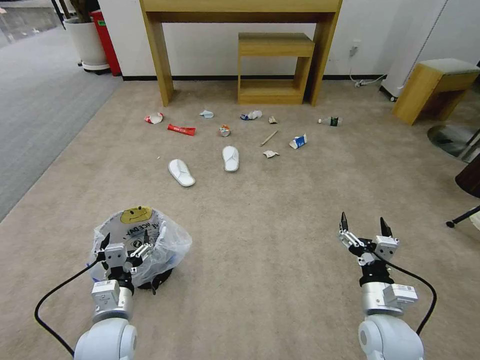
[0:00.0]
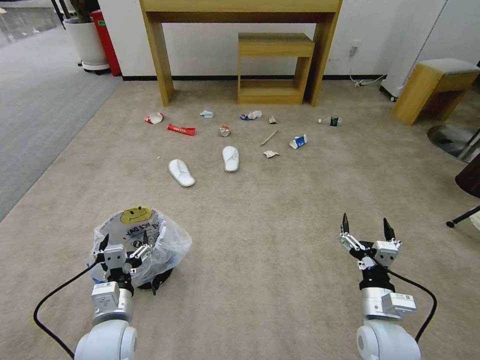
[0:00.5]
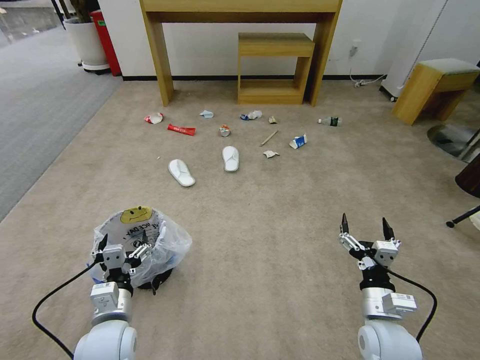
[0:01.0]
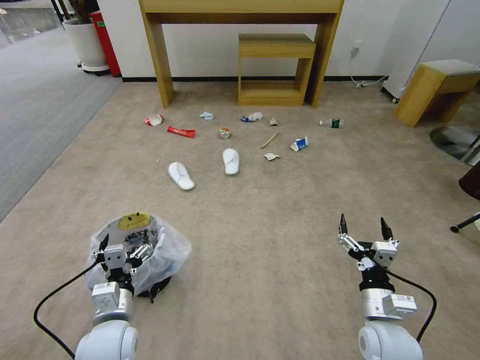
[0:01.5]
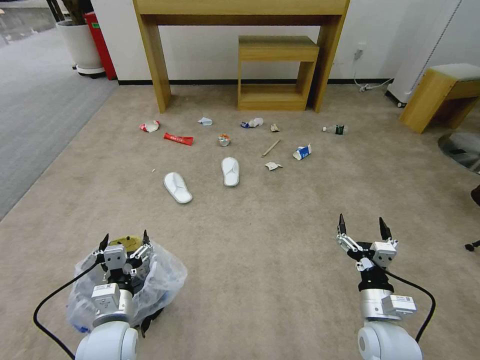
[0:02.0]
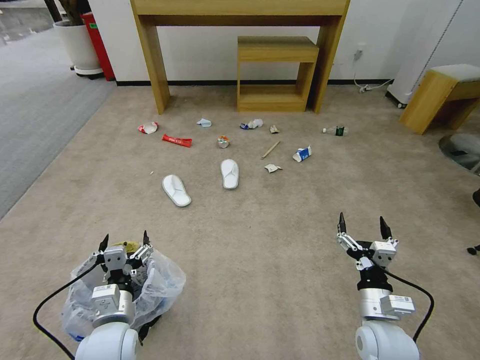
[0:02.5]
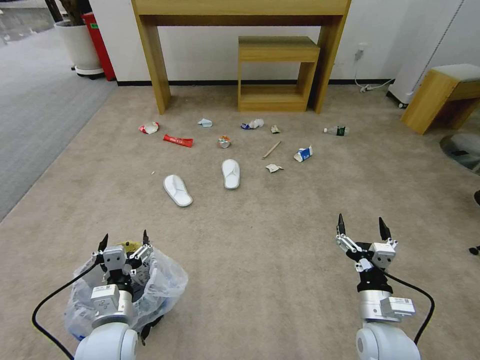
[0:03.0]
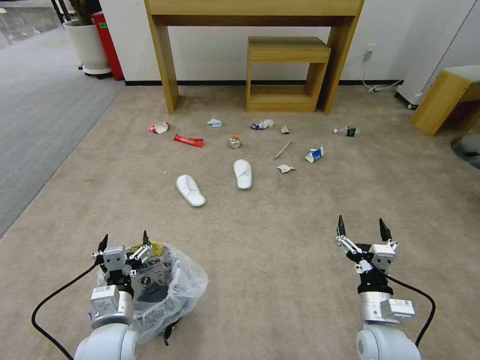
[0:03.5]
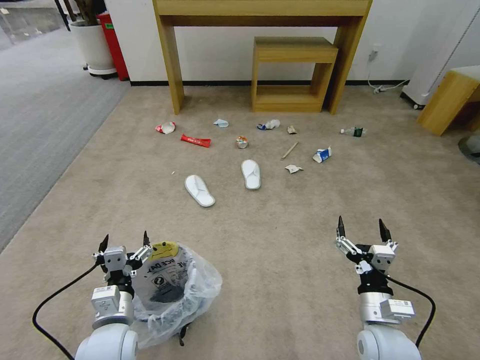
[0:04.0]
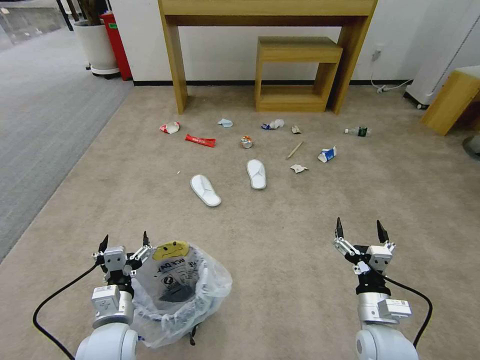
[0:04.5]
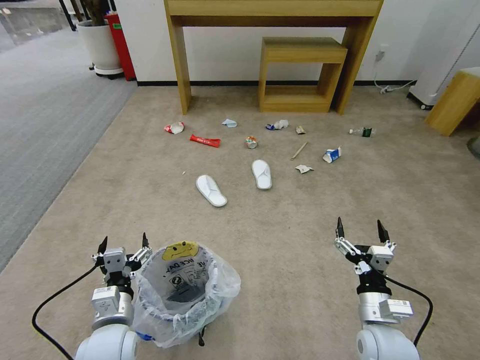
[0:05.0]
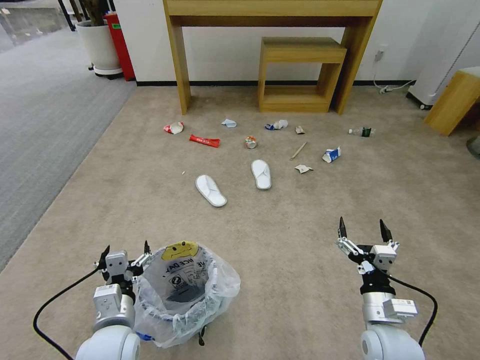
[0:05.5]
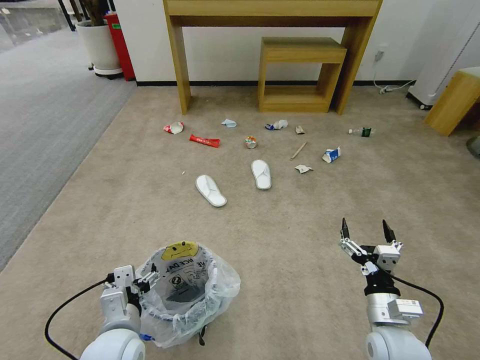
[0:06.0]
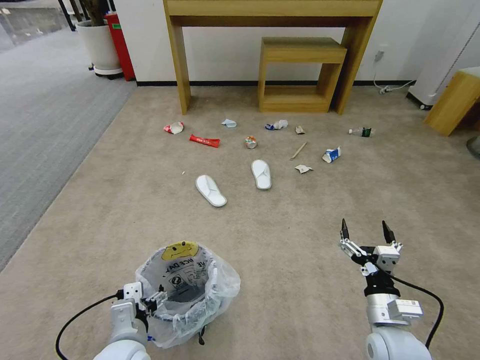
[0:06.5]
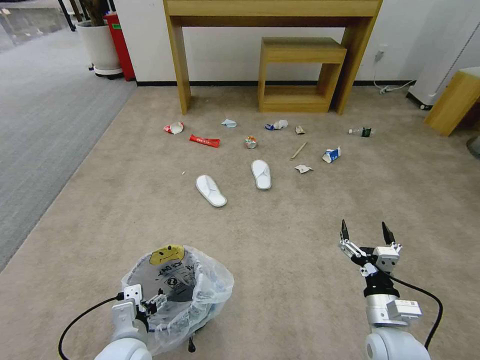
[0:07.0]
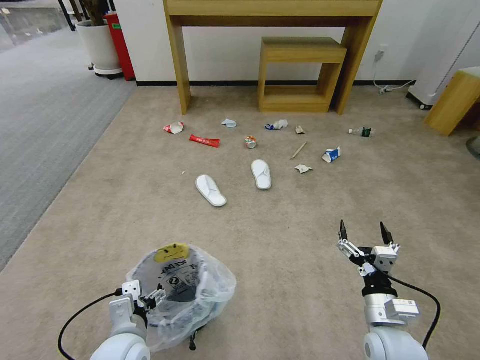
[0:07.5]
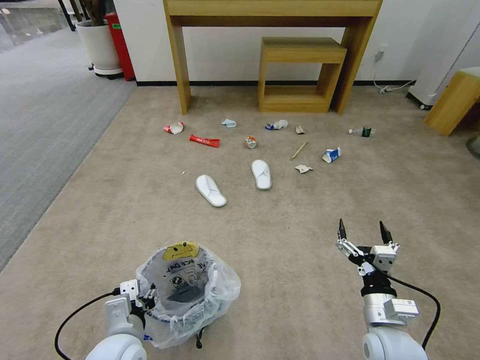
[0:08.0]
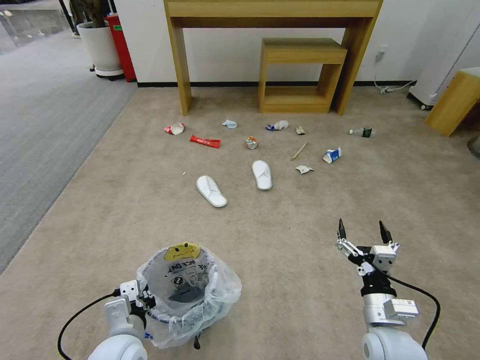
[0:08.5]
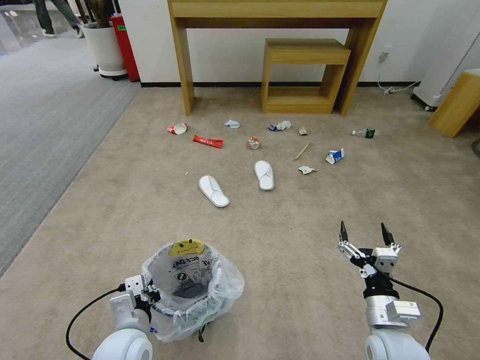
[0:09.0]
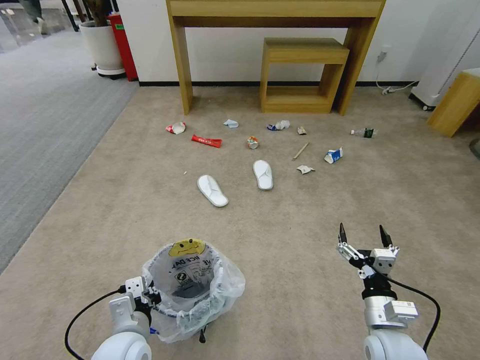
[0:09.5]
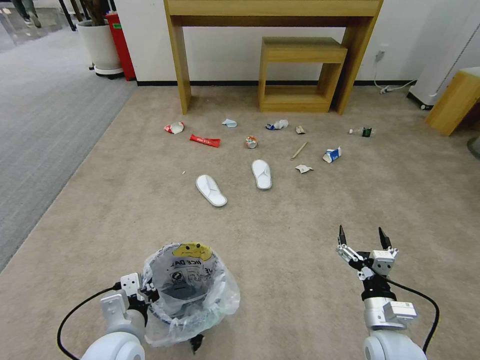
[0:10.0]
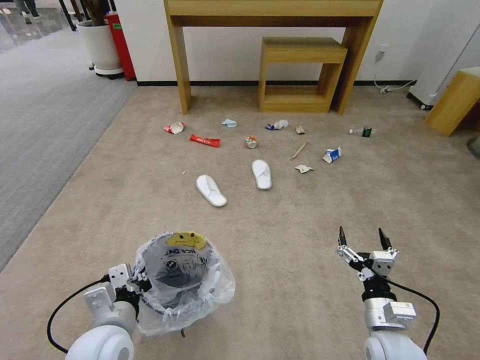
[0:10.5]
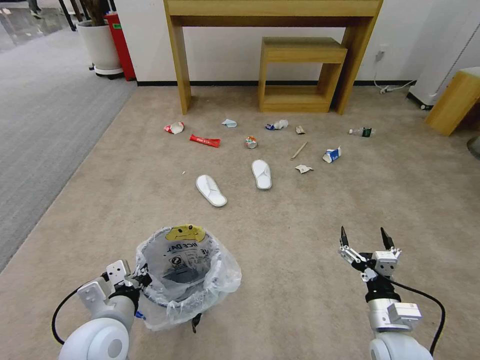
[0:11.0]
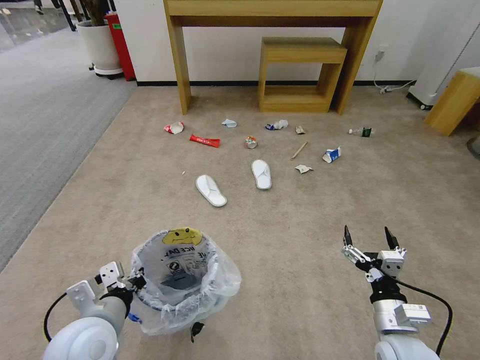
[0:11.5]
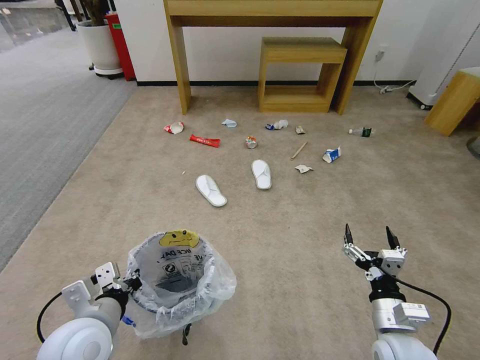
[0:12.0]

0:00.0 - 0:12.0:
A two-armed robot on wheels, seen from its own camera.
Task of the whole recording: Pick up the trash bin and place the garbage on the floor into it.
0:02.0 - 0:04.0: Both grippers stay about where they are.
0:06.0 - 0:08.0: The left gripper closes.
0:08.0 - 0:10.0: The left gripper closes its fingers.
0:10.0 - 0:12.0: The left gripper heads upward, covering some 5 cm.

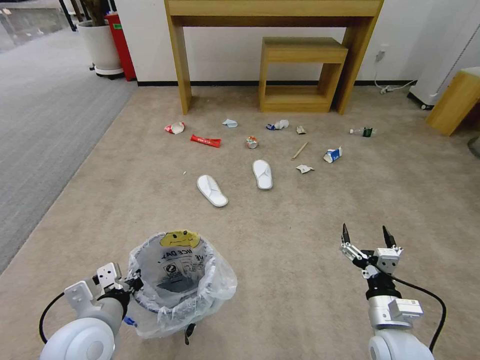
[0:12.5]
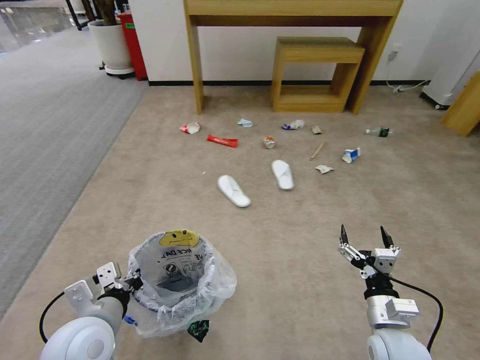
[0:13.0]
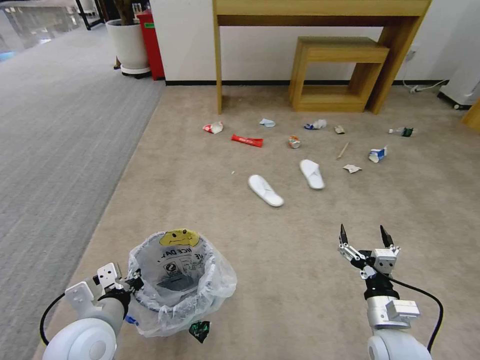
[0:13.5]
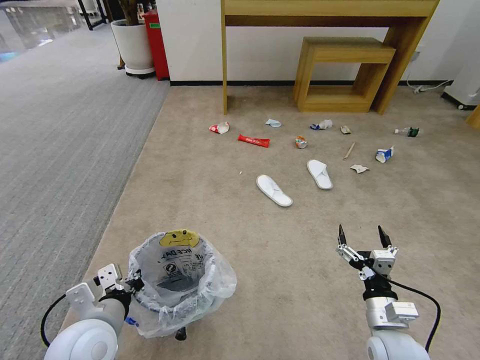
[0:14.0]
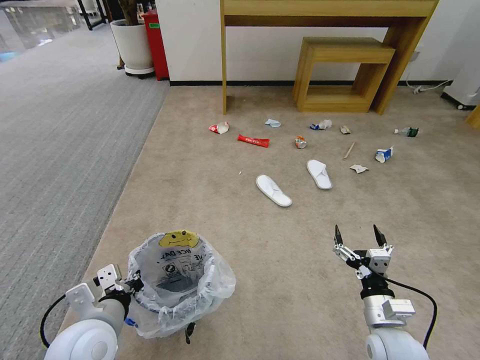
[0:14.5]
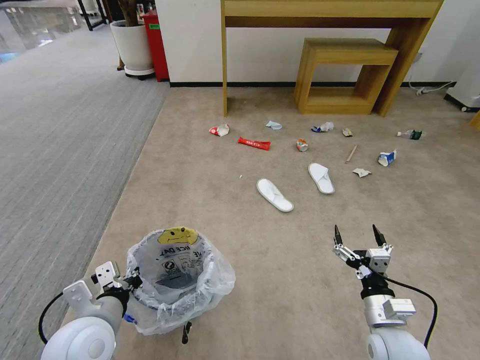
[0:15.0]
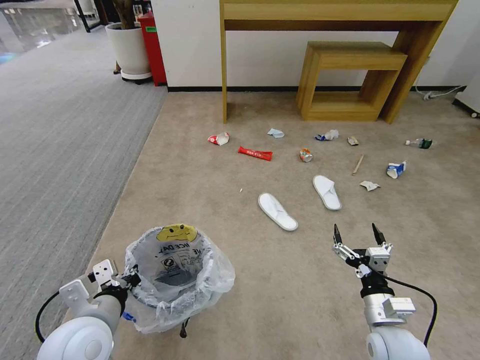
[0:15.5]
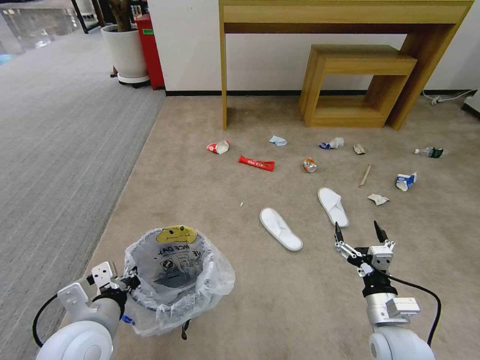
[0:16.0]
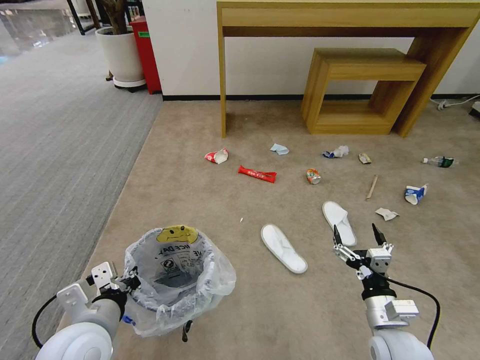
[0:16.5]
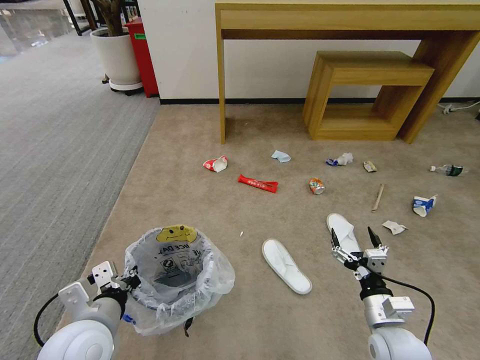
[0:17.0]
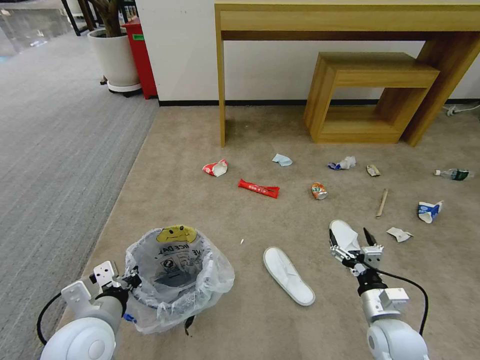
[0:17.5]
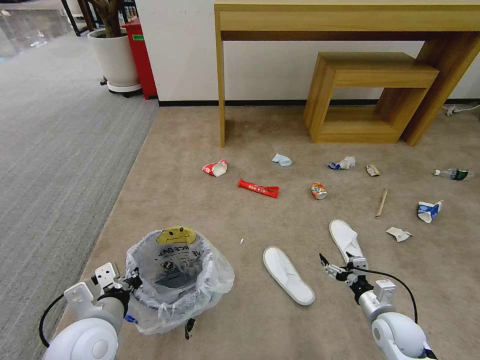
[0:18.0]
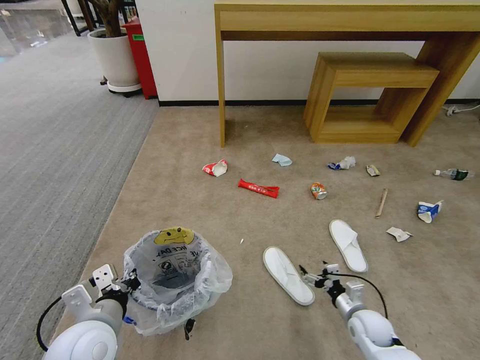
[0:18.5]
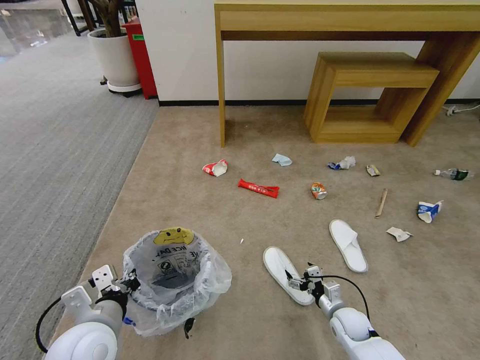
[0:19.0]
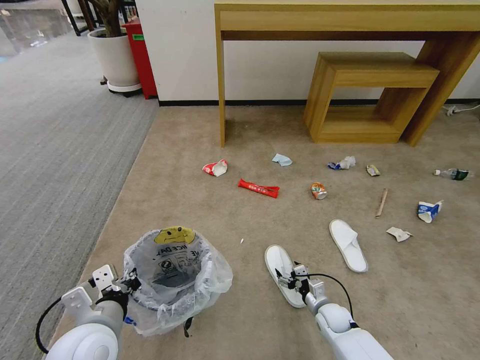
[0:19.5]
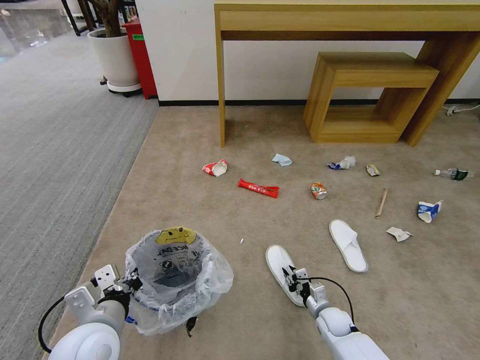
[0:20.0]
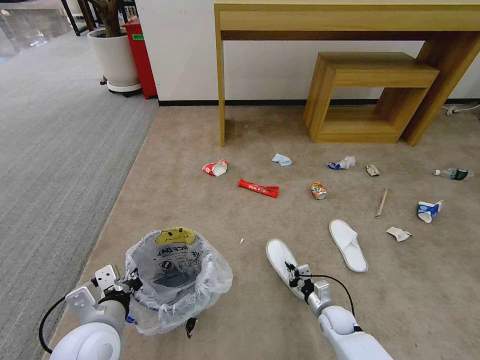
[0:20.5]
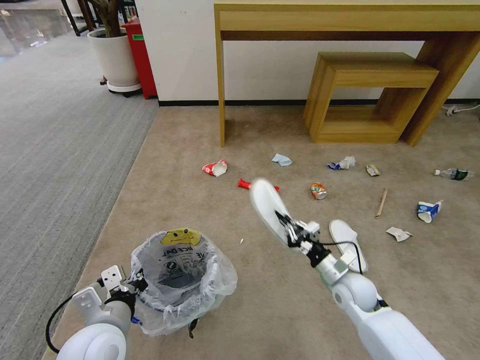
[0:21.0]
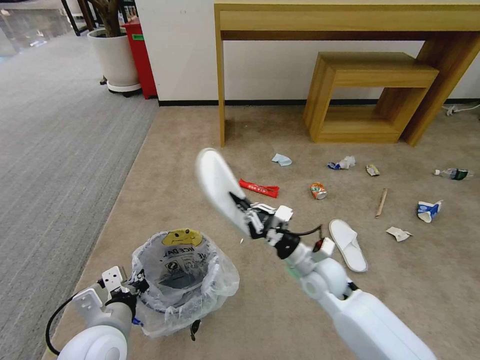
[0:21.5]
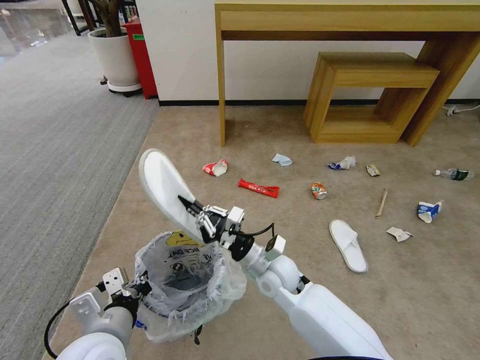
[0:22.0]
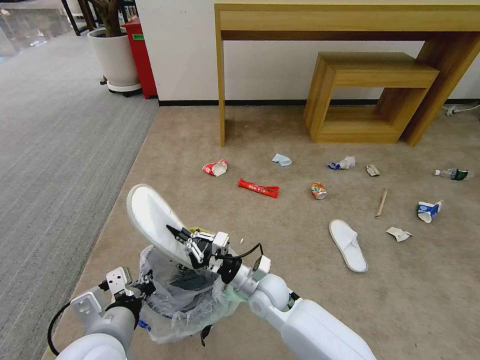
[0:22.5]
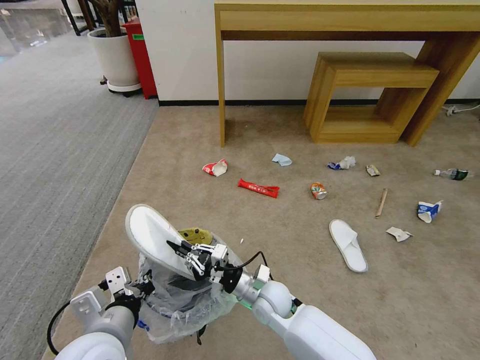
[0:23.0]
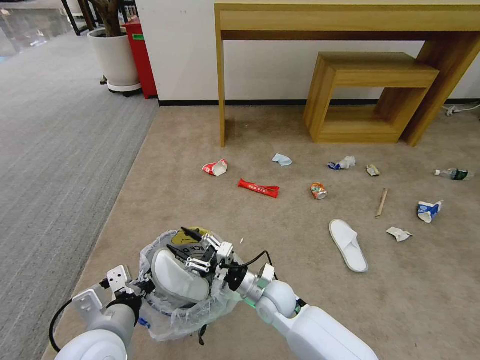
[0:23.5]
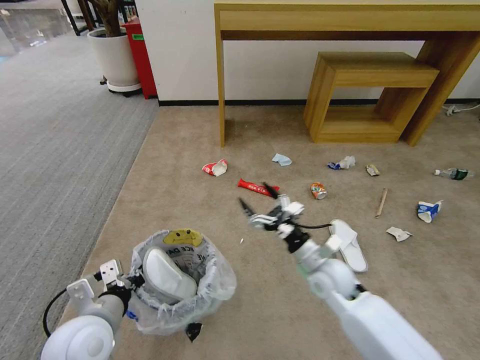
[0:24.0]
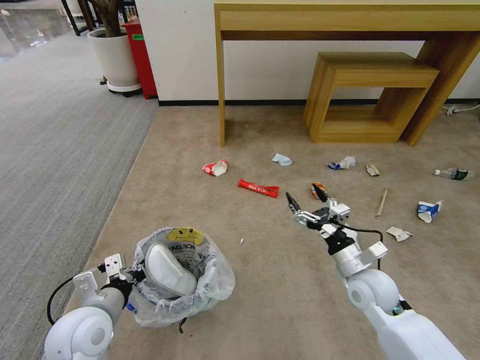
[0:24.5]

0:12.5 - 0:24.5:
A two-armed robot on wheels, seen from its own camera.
Task of the whole recording: Pick up the trash bin and place the garbage on the floor into it.
0:16.5 - 0:18.5: The right gripper shifts about 15 cm downward and forward.
0:18.5 - 0:20.5: The right gripper travels downward and to the left by approximately 10 cm, and closes up.
0:20.5 - 0:22.5: The right gripper goes about 30 cm to the left and upward.
0:22.5 - 0:24.5: The left gripper goes approximately 10 cm to the left and forward; the right gripper shifts roughly 25 cm to the right, and opens.

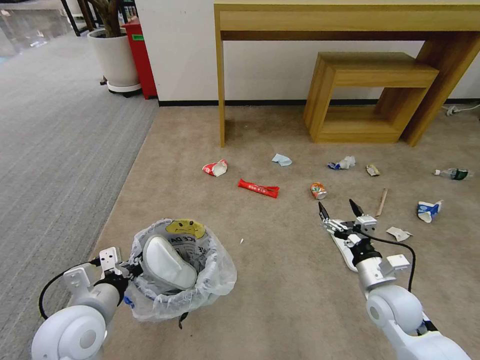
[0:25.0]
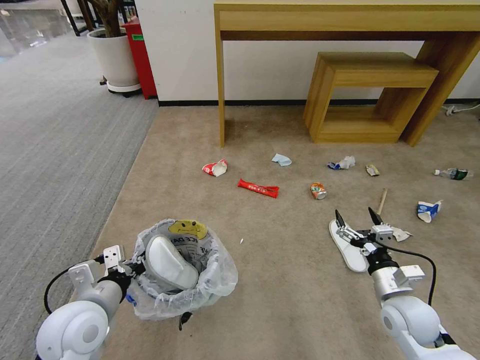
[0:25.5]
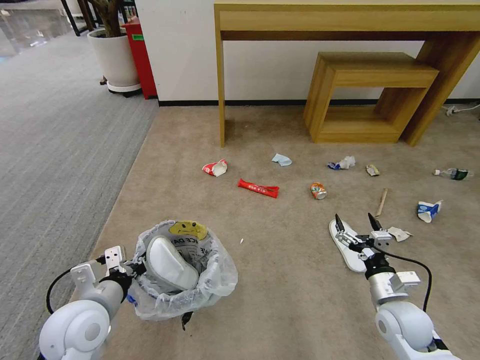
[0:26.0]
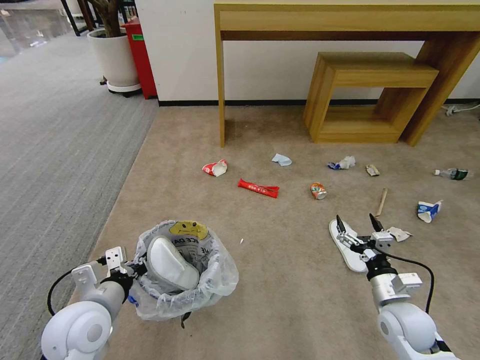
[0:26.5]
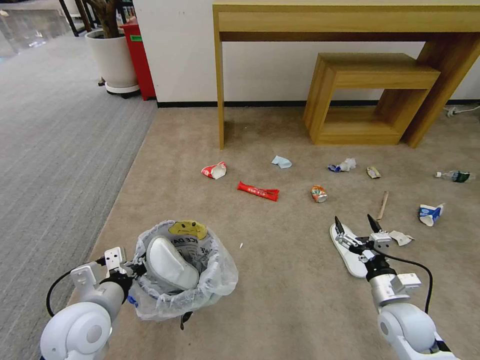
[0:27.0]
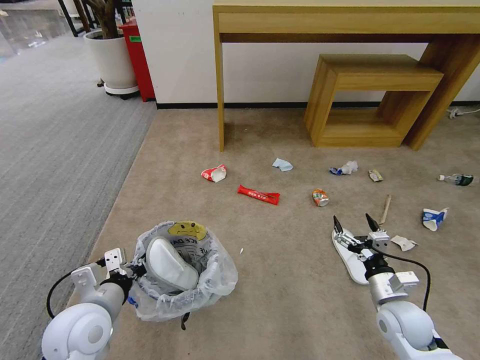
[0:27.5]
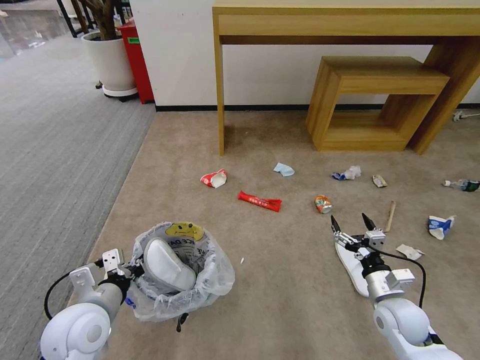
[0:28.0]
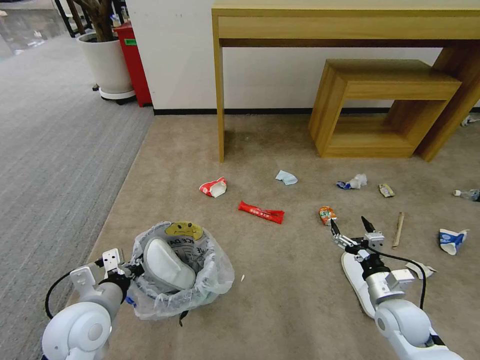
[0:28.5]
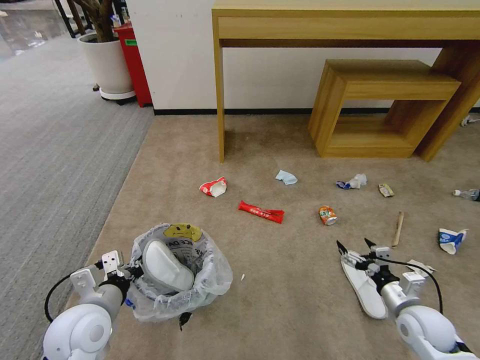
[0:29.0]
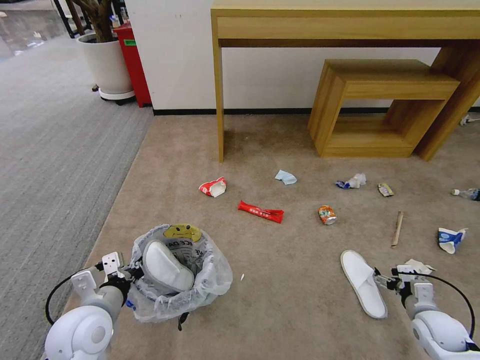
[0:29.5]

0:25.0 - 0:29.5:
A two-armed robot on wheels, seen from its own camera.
Task of the whole recording: Pick up the trash bin and place the garbage on the floor into it.
0:25.0 - 0:27.0: The right gripper shifts by about 5 cm.
0:27.0 - 0:29.5: The right gripper is displaced to the right and downward by approximately 15 cm.
